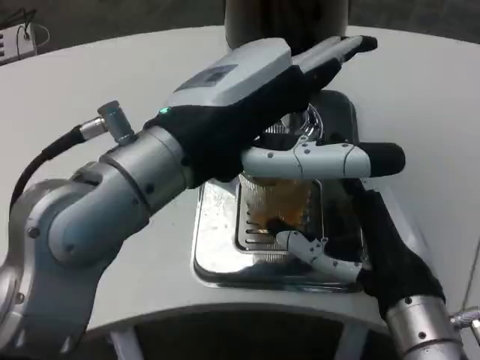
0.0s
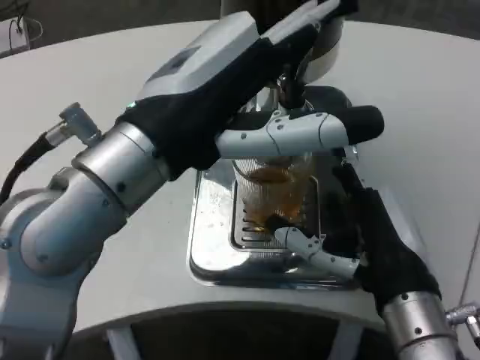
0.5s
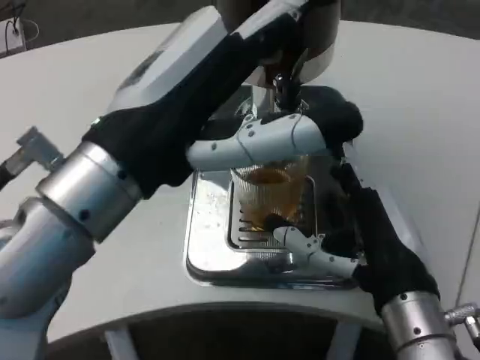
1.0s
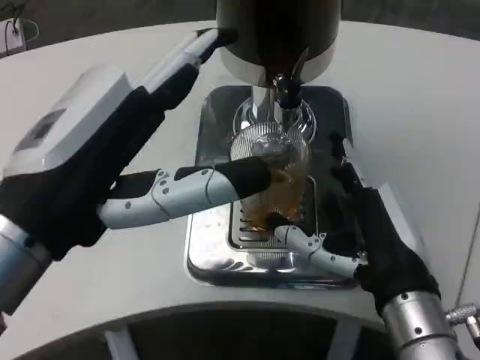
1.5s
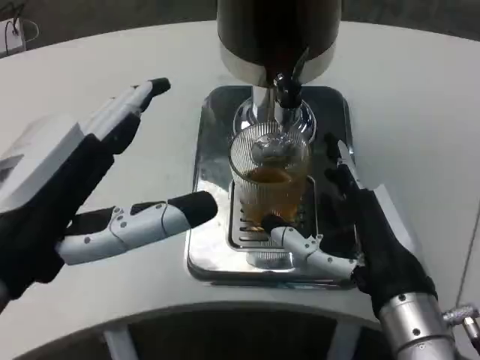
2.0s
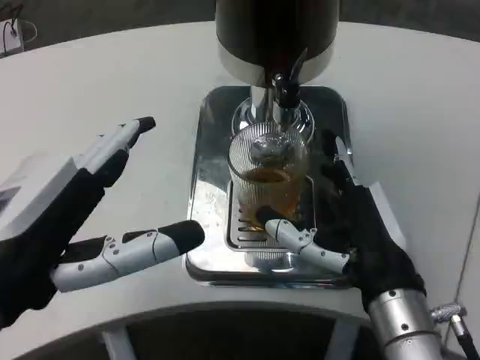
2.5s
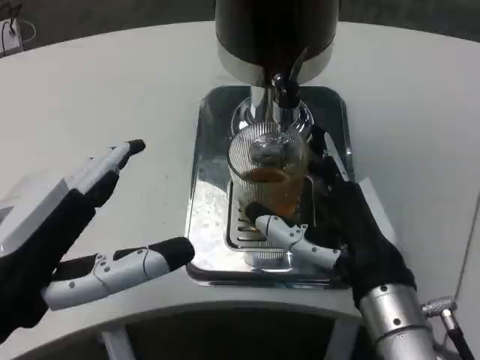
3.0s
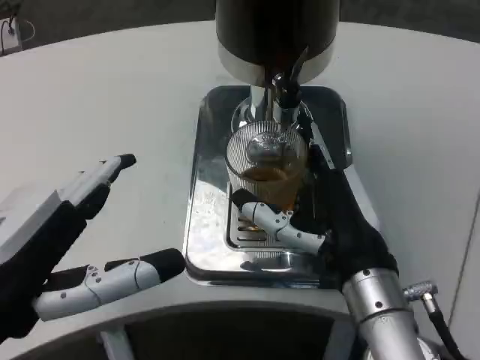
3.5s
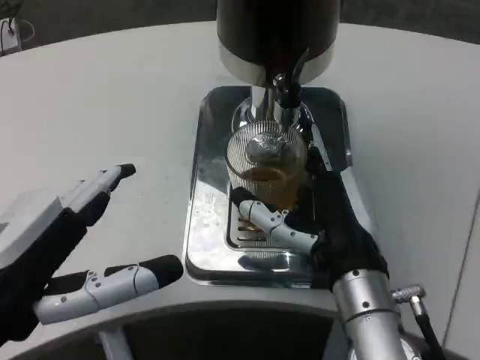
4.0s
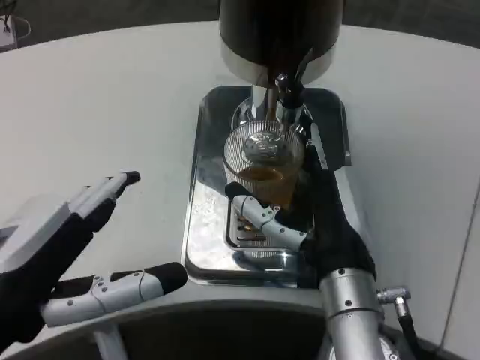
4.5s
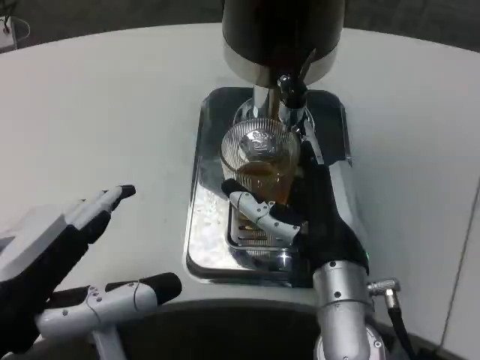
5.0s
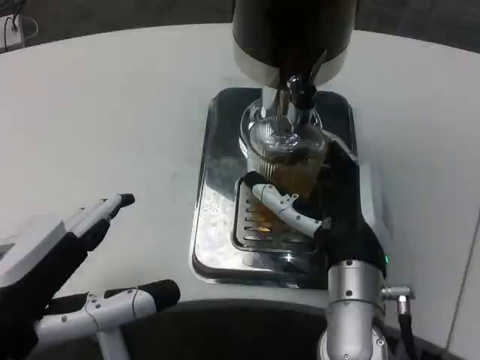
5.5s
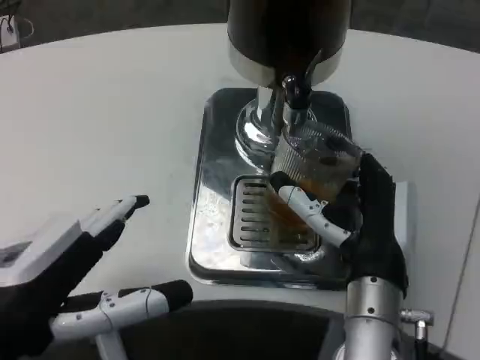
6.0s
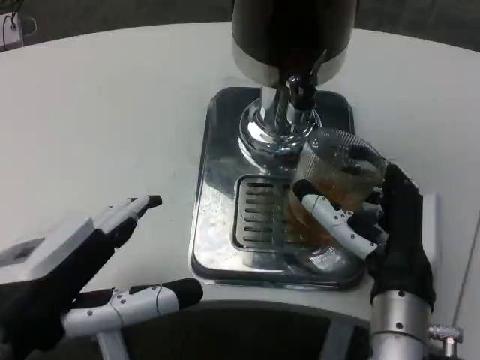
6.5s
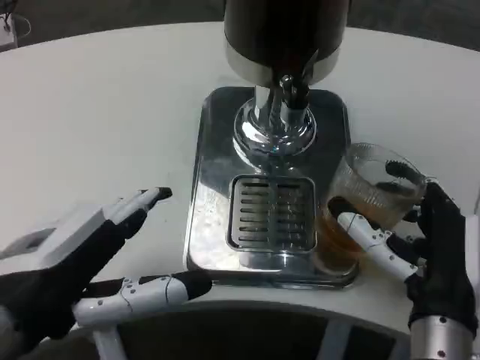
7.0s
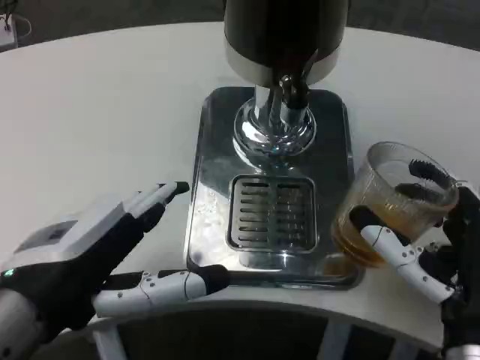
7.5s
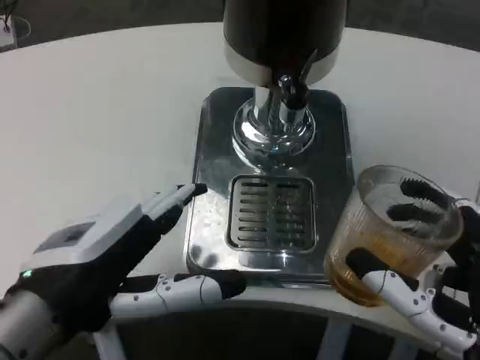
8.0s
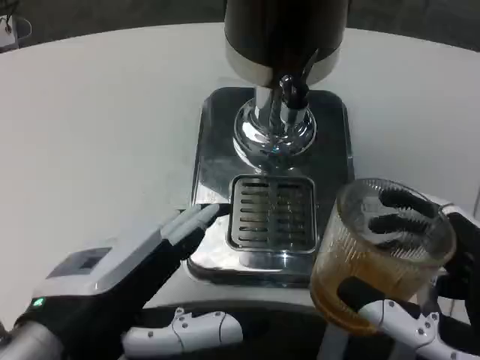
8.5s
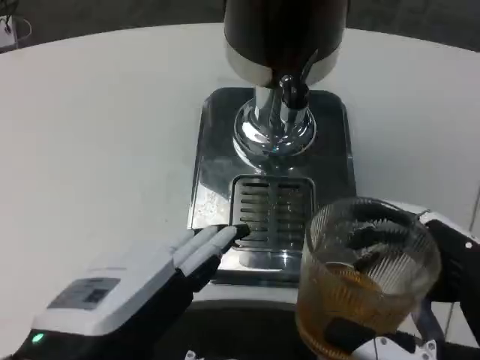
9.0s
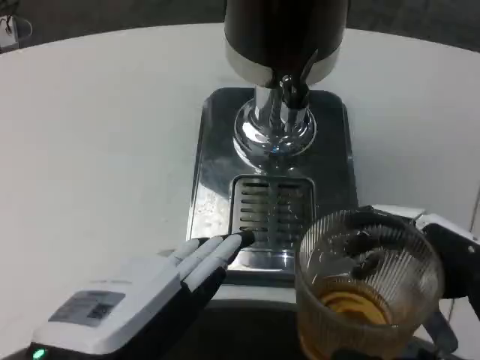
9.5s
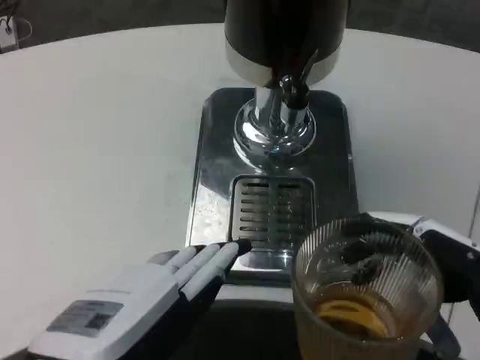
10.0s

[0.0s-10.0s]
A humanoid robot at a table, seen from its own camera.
Task of the whole recording: Grasp the cup under the faucet to collect the drink, then remove the cup.
0.0s to 2.0s: The left hand shifts some 10 cm to the left, backward and downward.
6.0s to 8.0s: The right hand is displaced backward and to the right by approximately 15 cm.
8.0s to 10.0s: The right hand ends up roughly 5 cm from where it was, while the left hand is displaced backward by about 5 cm.

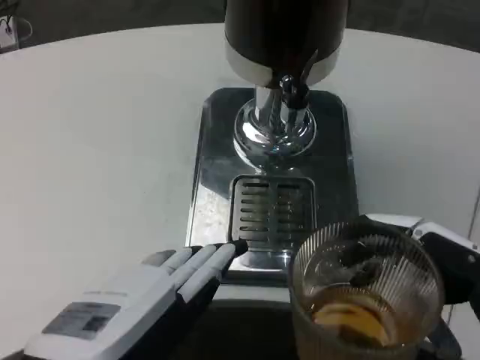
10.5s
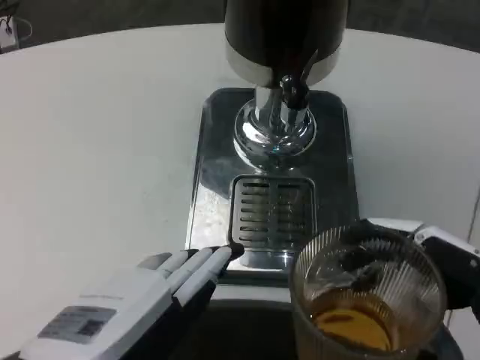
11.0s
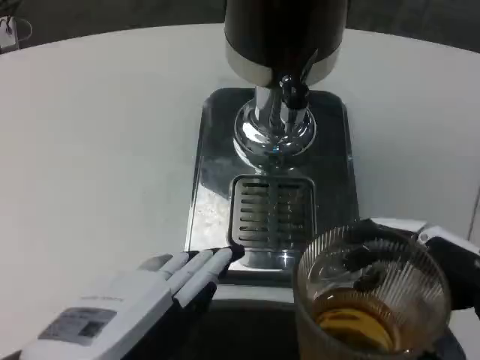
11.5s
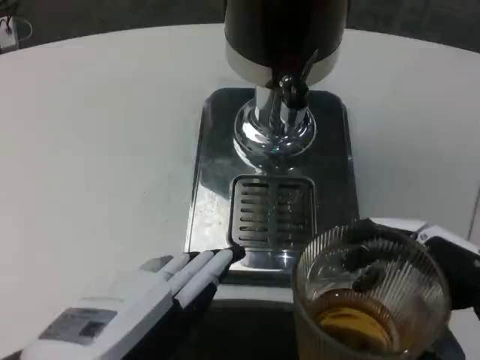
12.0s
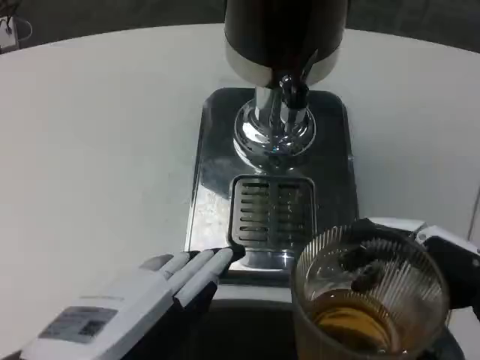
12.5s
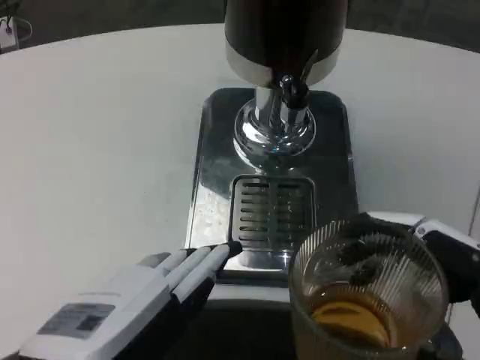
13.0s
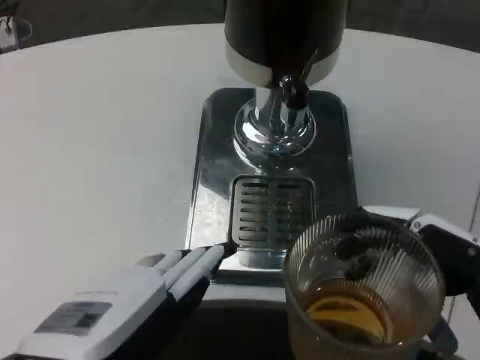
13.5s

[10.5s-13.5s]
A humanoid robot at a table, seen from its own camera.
Task of the whole recording: Grasp the cup under the faucet to collect the drink, then remove the cup.
10.5s to 13.5s: Neither hand changes place.

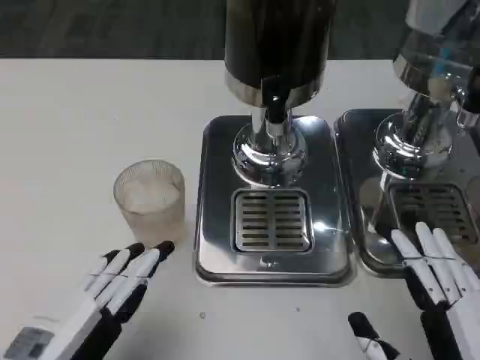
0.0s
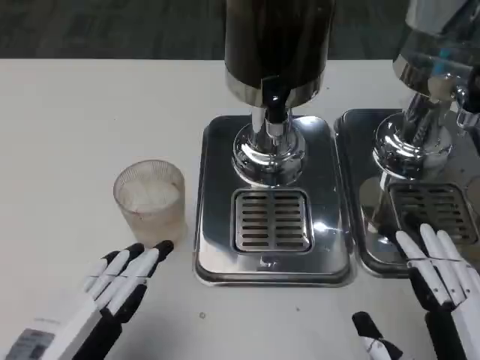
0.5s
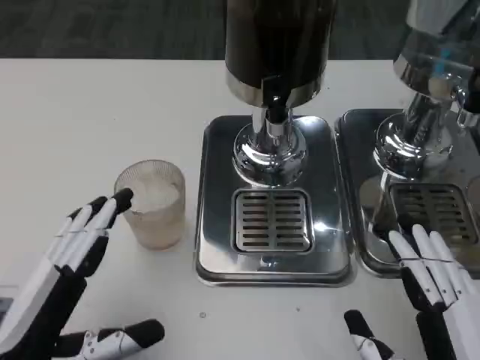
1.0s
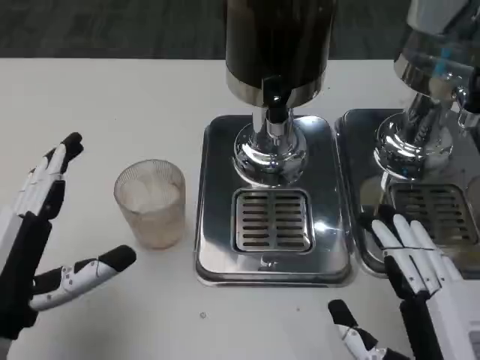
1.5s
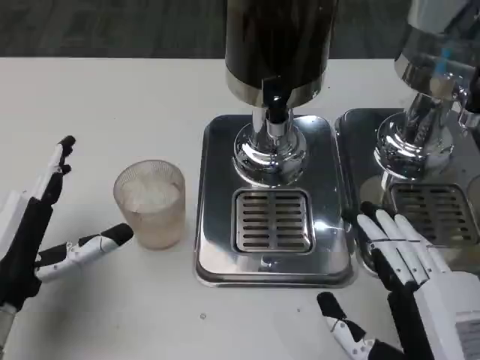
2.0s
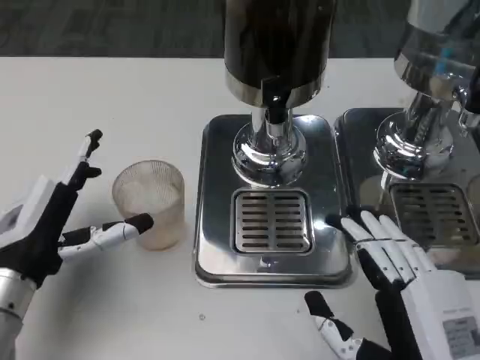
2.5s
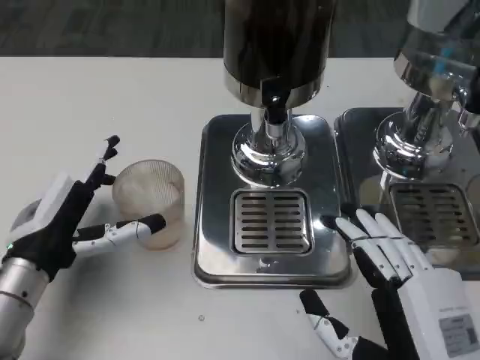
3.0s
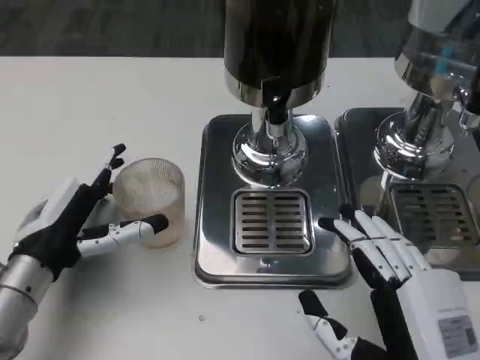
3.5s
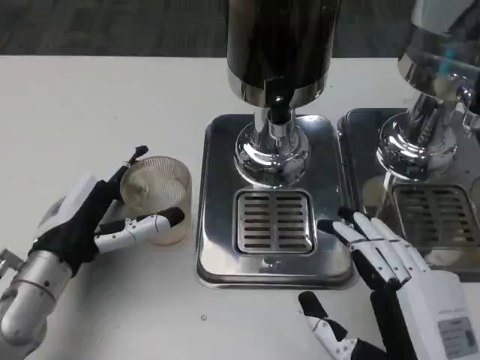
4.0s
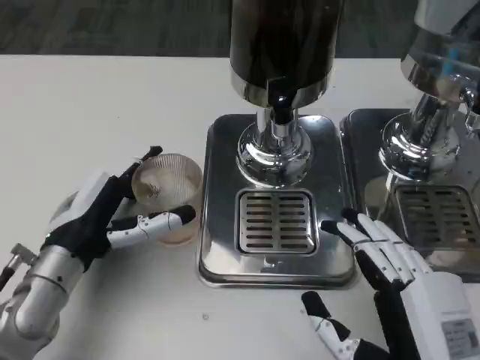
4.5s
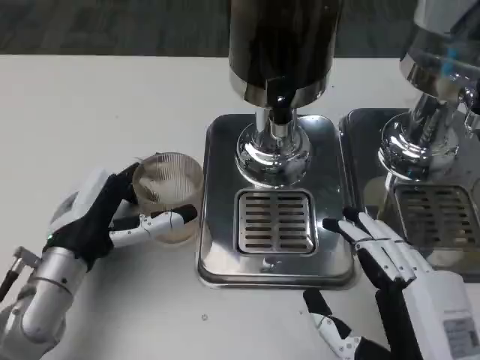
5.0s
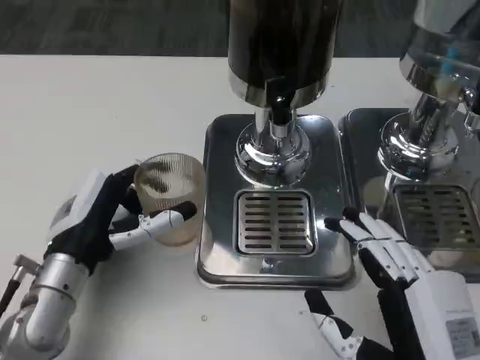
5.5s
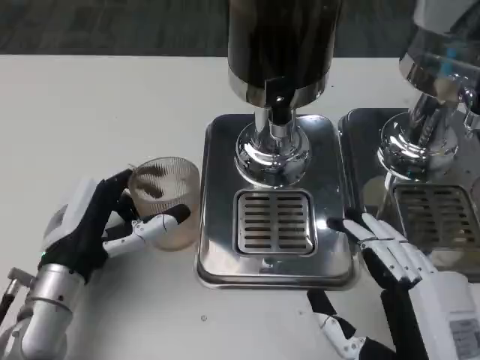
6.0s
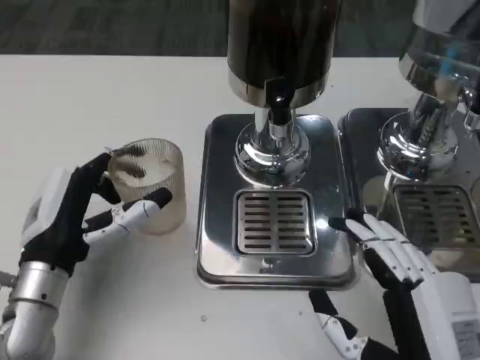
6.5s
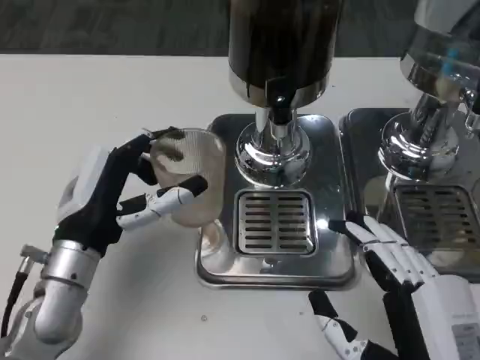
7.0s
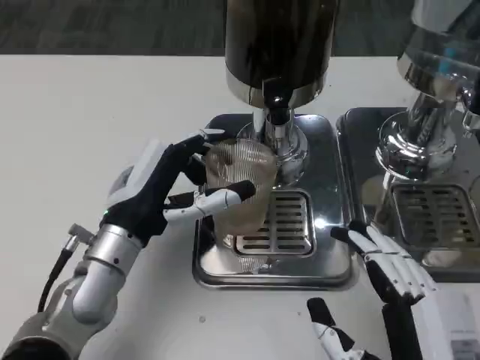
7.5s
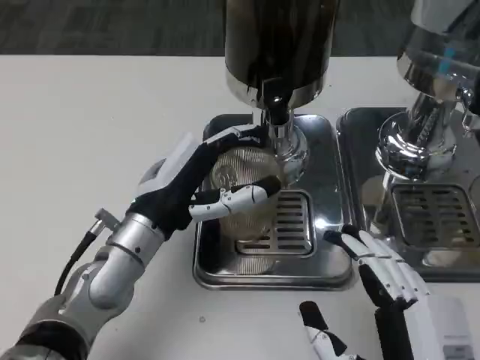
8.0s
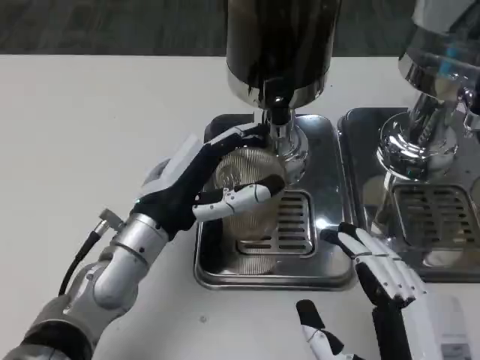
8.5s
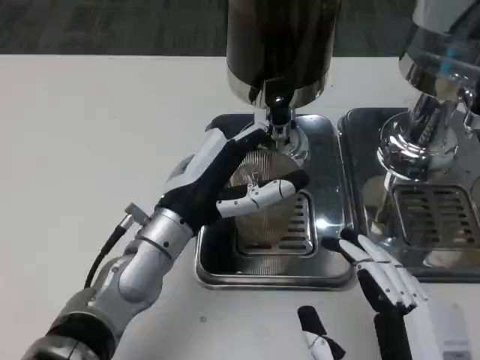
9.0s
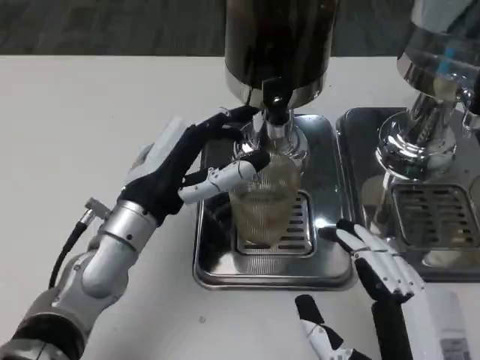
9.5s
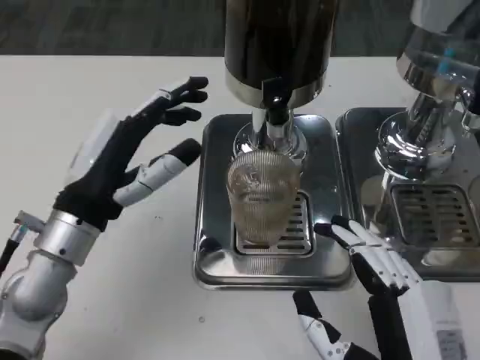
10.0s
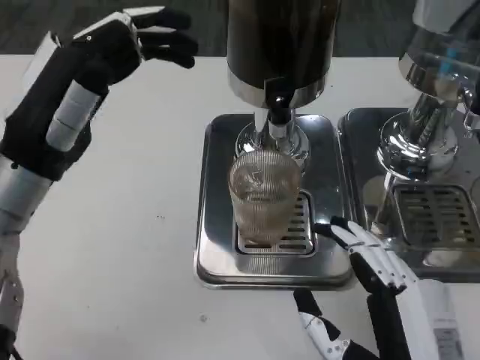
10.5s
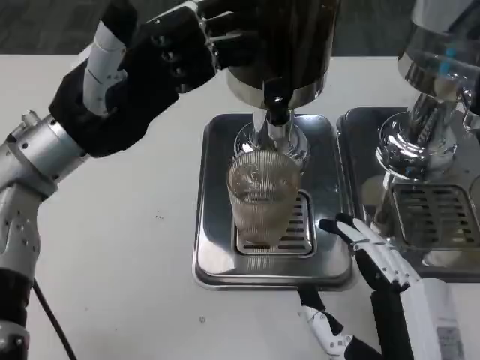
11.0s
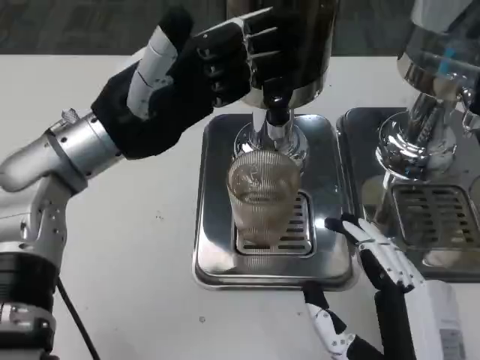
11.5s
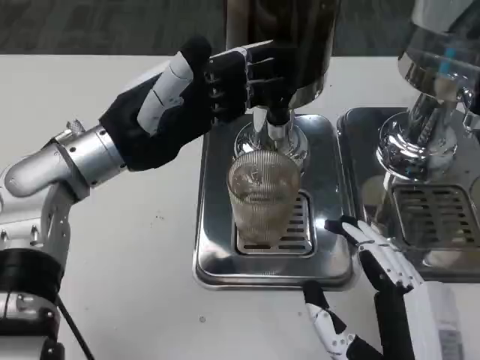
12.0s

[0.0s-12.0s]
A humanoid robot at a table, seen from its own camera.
Task of the whole recording: Grasp the cup under the faucet to collect the drink, then remove the cup.
0.0s to 2.0s: The left hand is displaced forward by roughly 10 cm.
2.0s to 4.0s: The left hand travels forward by approximately 5 cm.
4.0s to 6.0s: The hands stay close to where they were, moving slightly.
6.0s to 8.0s: The left hand heads to the right, covering approximately 5 cm.
8.0s to 10.0s: The left hand shifts about 5 cm to the left.
10.0s to 12.0s: The left hand shifts some 10 cm forward and upward.

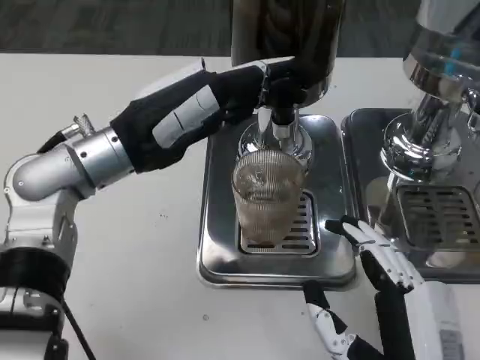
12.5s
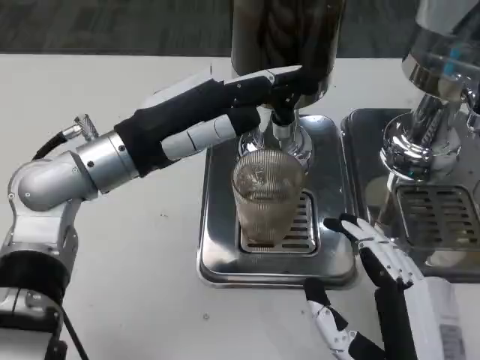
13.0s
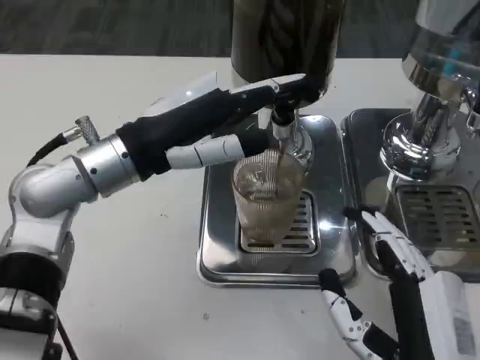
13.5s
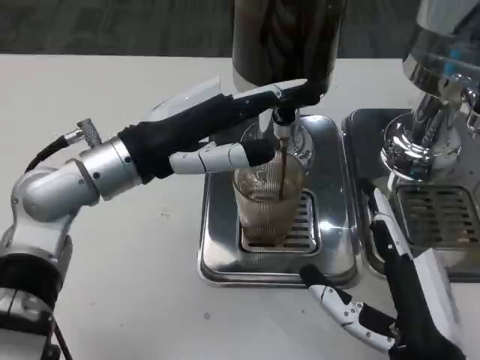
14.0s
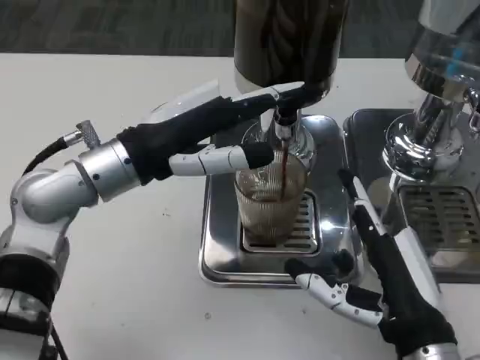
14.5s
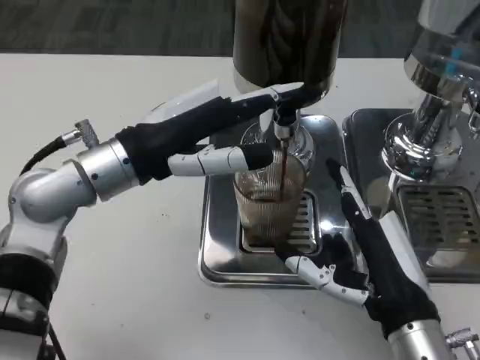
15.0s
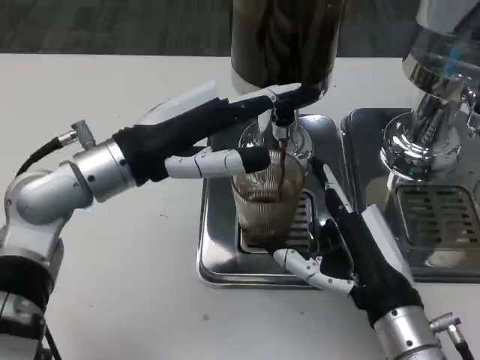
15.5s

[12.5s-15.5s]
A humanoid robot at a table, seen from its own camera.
Task of the whole recording: Grasp the cup under the faucet to collect the drink, then remove the cup.
14.0s to 15.5s: The right hand travels forward by about 5 cm.
